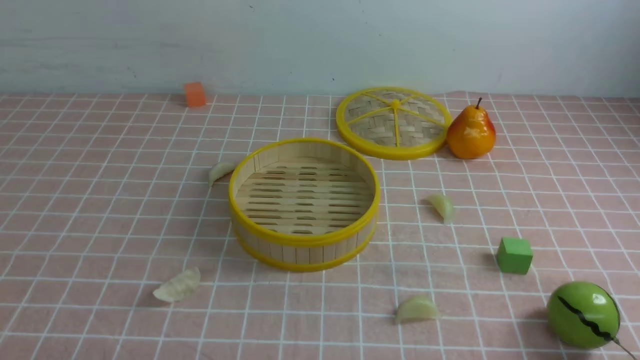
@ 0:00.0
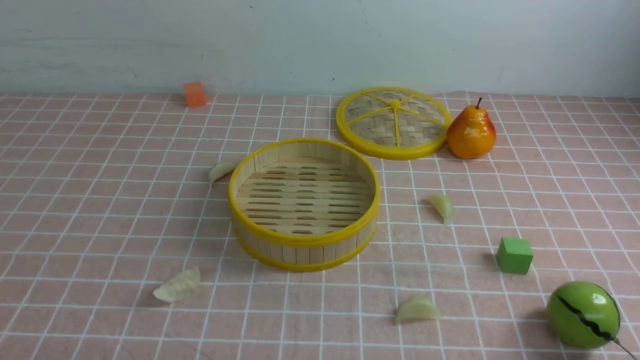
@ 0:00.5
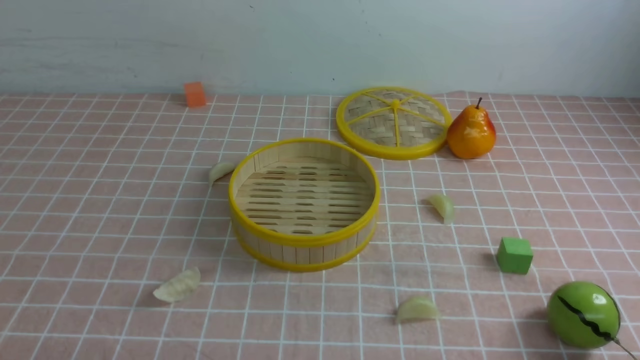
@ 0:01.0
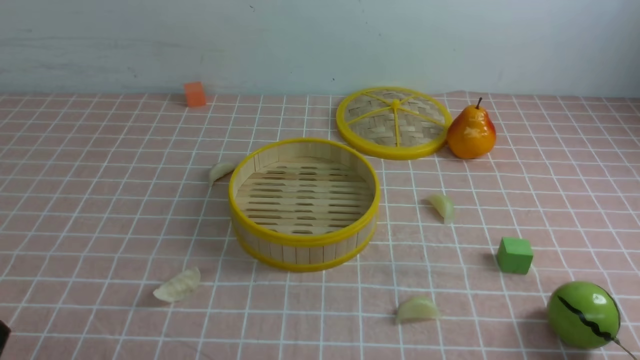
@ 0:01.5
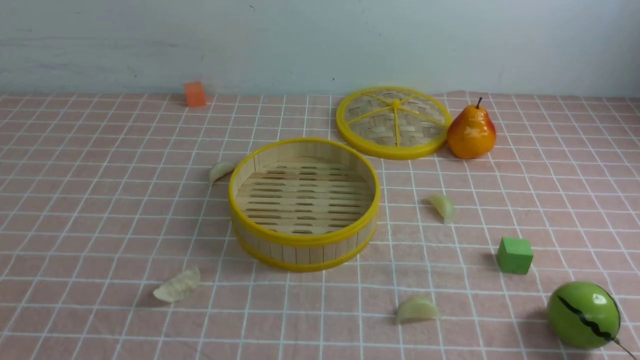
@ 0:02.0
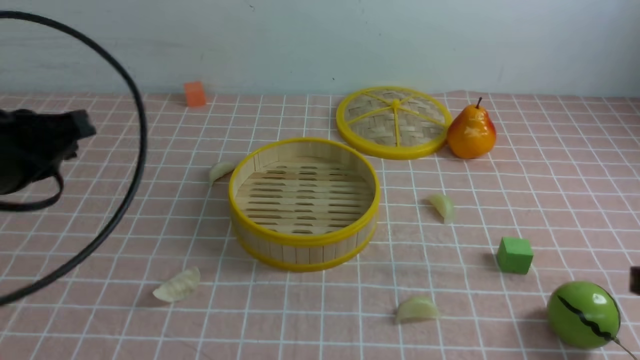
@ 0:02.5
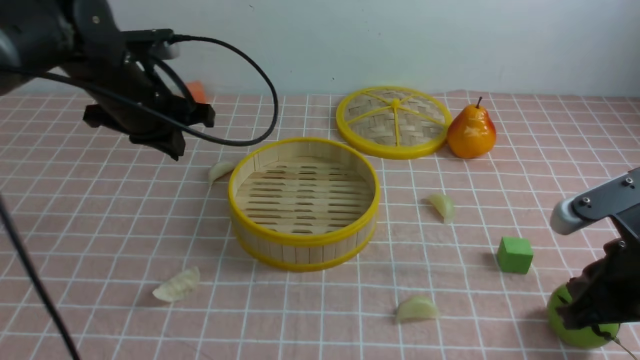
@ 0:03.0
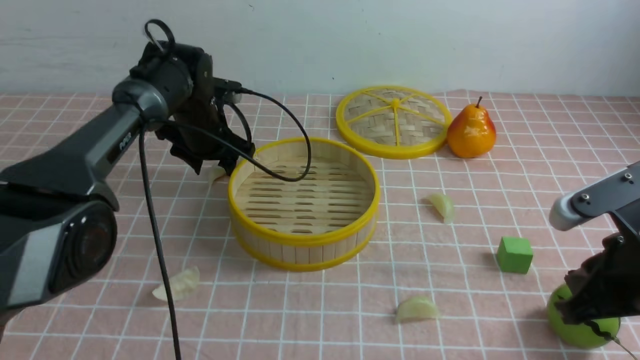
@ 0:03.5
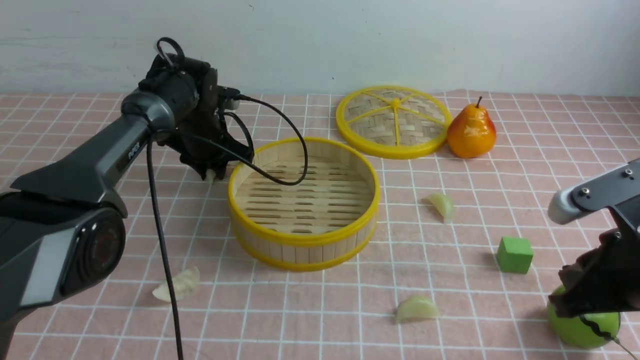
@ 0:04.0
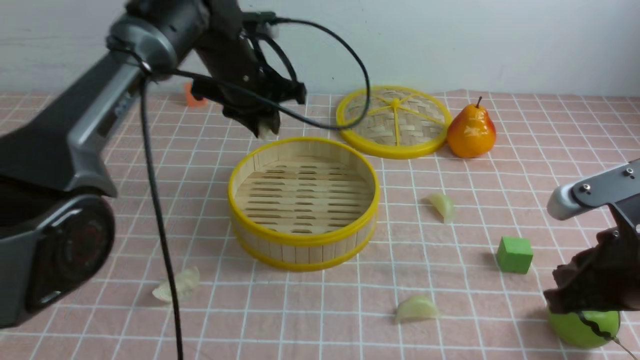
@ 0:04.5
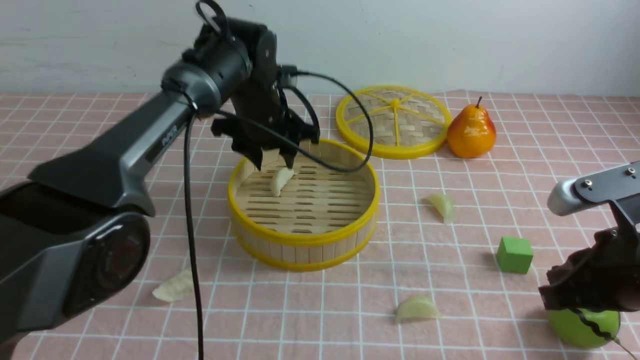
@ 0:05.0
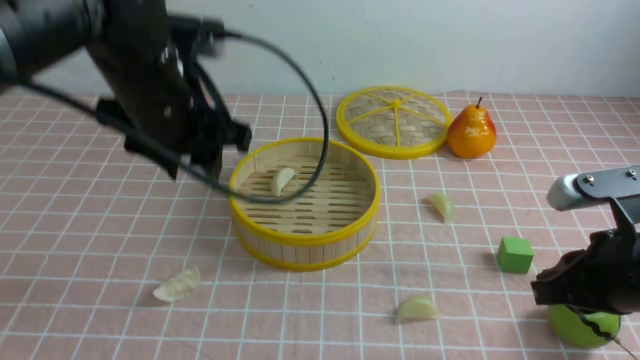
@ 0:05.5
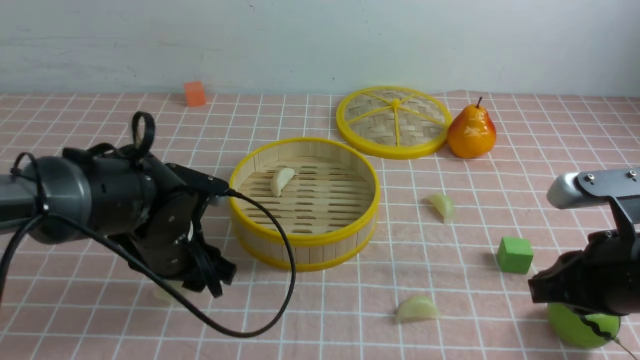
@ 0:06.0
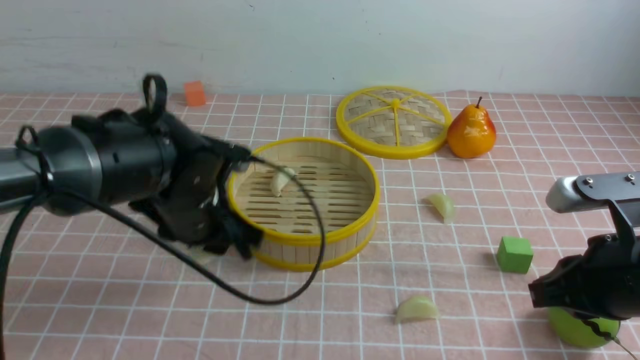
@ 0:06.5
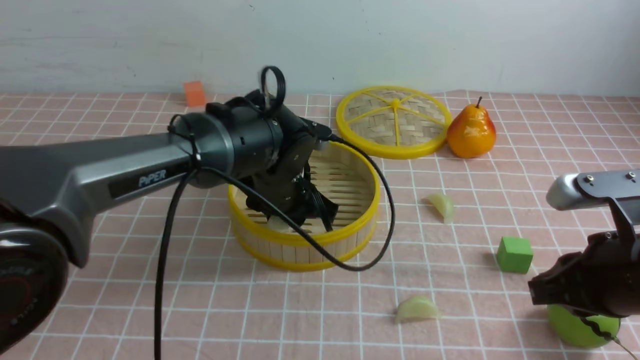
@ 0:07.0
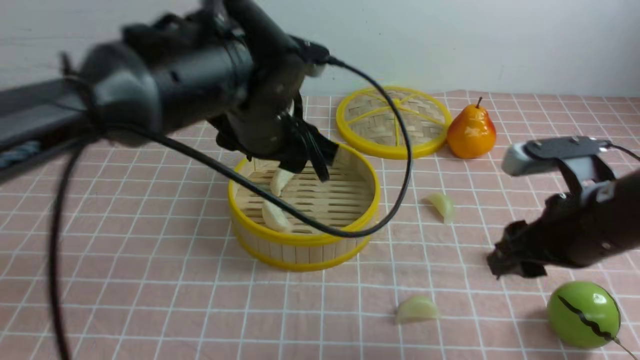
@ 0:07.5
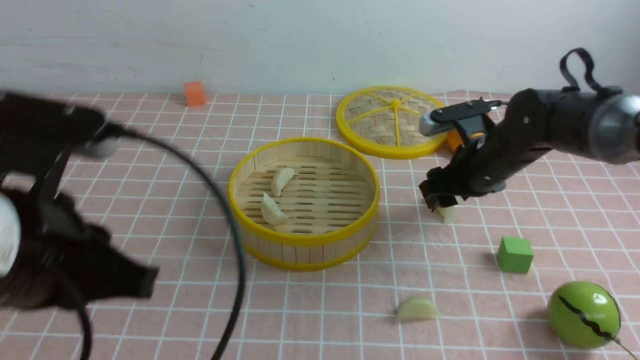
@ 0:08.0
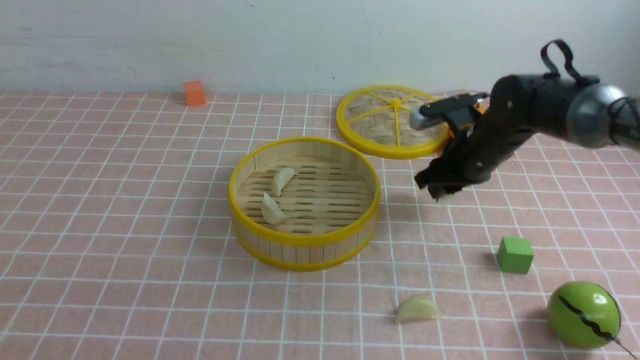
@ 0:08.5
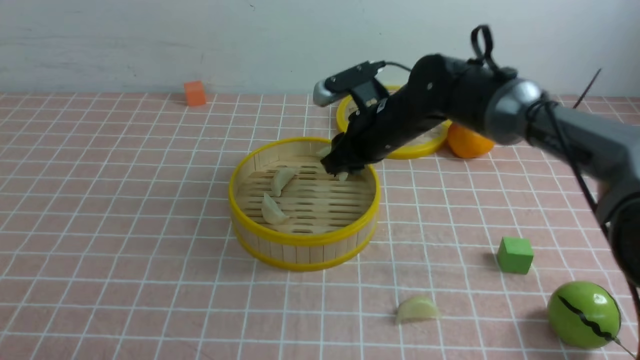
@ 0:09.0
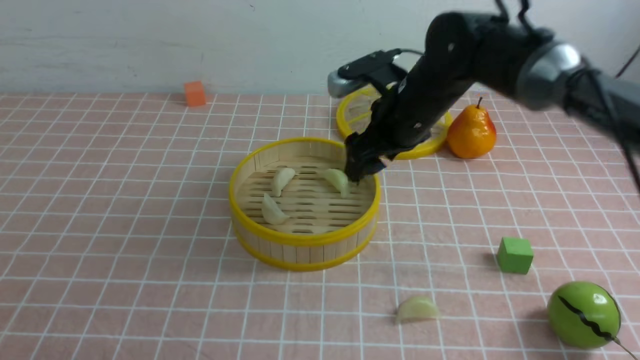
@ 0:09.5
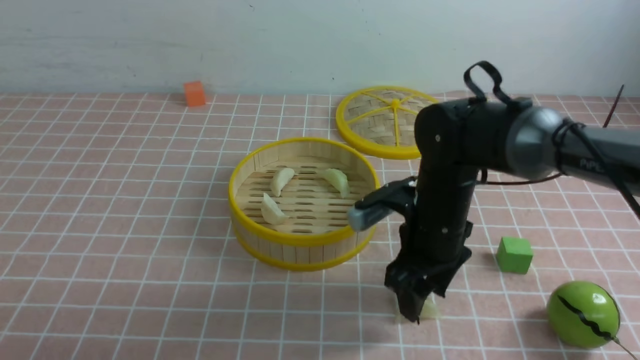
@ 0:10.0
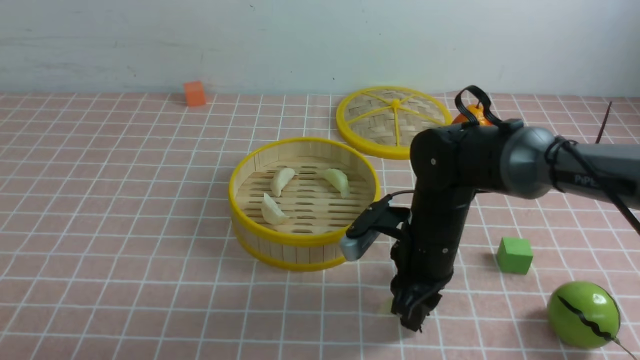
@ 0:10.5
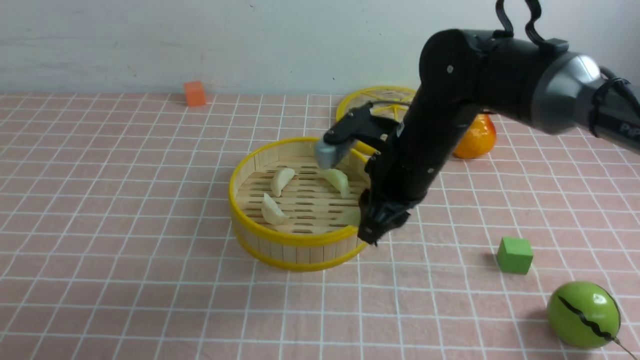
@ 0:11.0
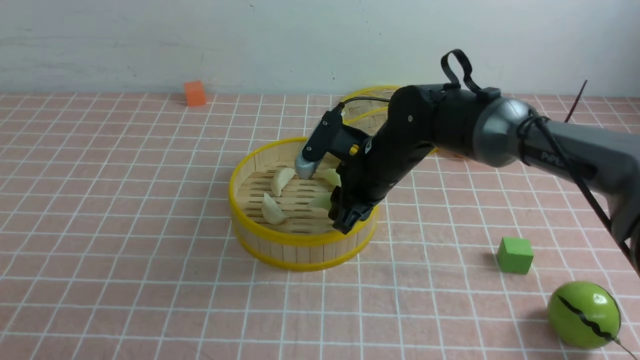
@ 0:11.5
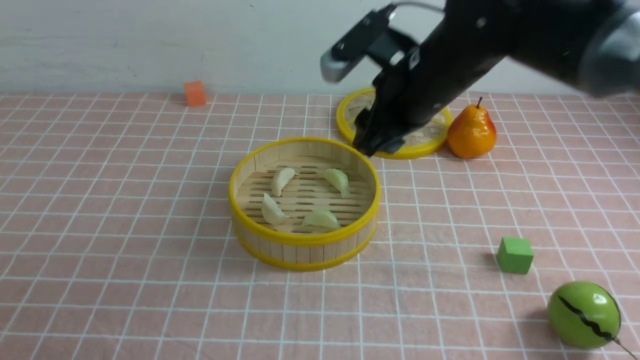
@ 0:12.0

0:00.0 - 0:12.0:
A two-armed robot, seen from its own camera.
Task of the whole recording: put the dumplings into the steamer on the table with the pink tablecloth.
Step, 0:00.0 - 0:04.0: use the left arm to grab a dumpling.
Step, 0:05.0 - 0:06.0: use the left arm to grab a dumpling.
Step, 0:06.5 - 0:07.0: use the left arm to put the dumpling into the steamer.
Step, 0:07.5 - 0:08.0: use the right arm to grab a dumpling.
Step, 0:08.5 - 0:09.0: use the right arm to put the dumpling into the steamer.
Step, 0:09.5 - 0:10.5: use the right arm to grab a dumpling.
Step, 0:11.0 - 0:11.5: use the right arm to put the dumpling into the steamer.
0:02.0 - 0:04.0: The left gripper goes about 50 cm forward, and opens up; the right gripper moves forward, about 15 cm.
0:04.0 - 0:06.0: The left gripper moves backward, approximately 20 cm, and opens.
0:06.0 - 0:08.0: The left gripper shifts about 25 cm backward and upward, and closes up, while the right gripper shifts roughly 20 cm forward, and opens its fingers.
0:08.0 - 0:10.0: The right gripper travels to the left and backward by roughly 10 cm; the left gripper heads to the left, backward and downward, covering some 15 cm.
0:10.0 - 0:12.0: The right gripper travels upward by about 15 cm.

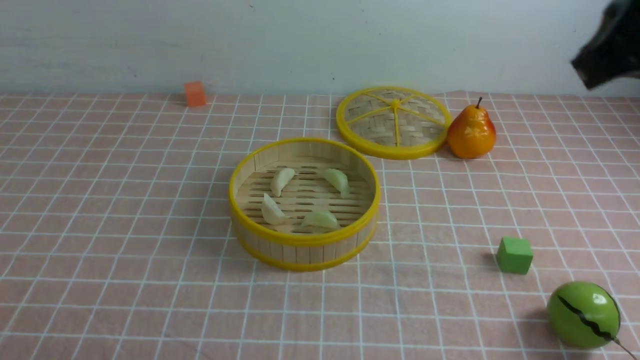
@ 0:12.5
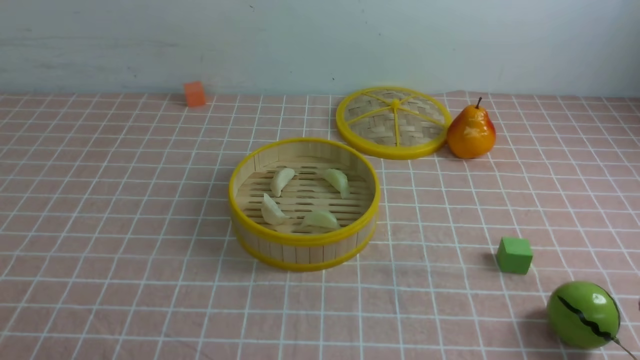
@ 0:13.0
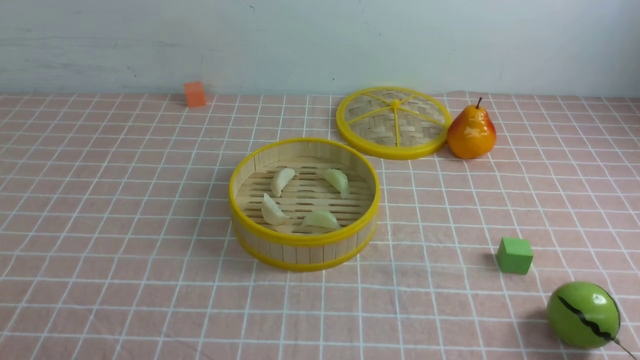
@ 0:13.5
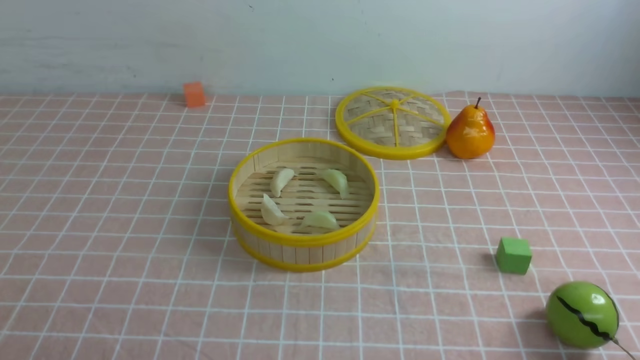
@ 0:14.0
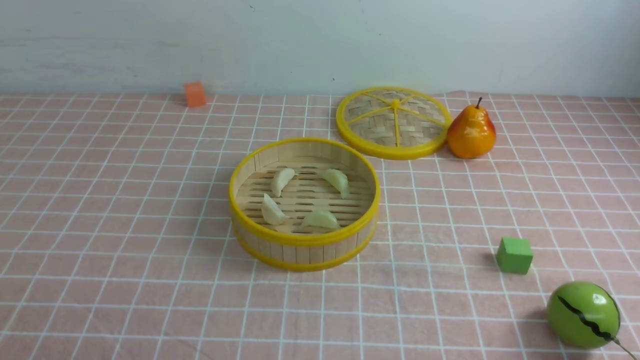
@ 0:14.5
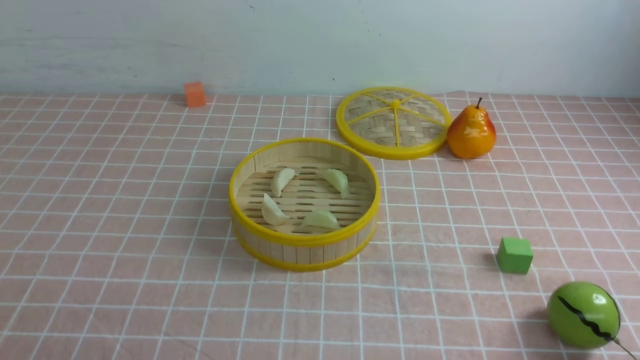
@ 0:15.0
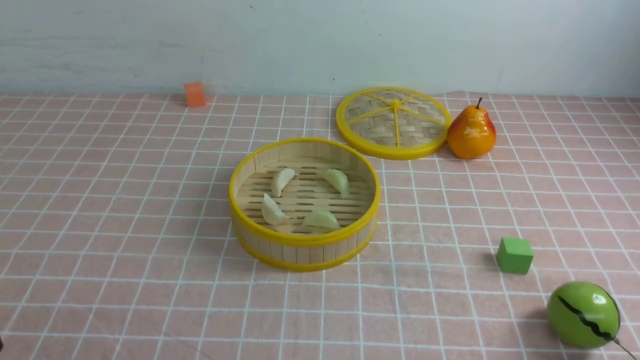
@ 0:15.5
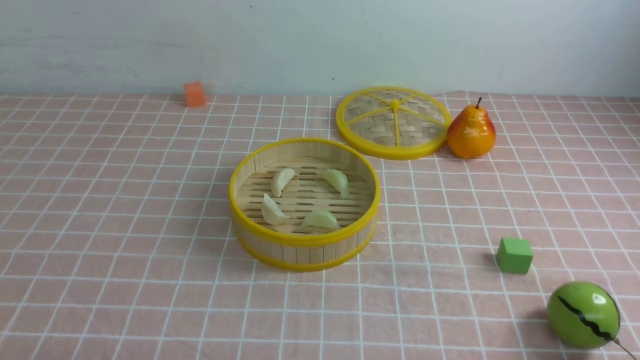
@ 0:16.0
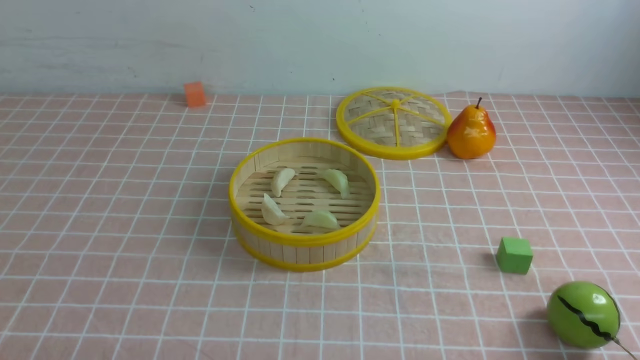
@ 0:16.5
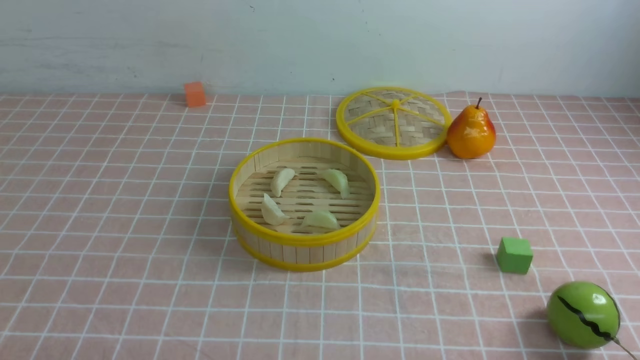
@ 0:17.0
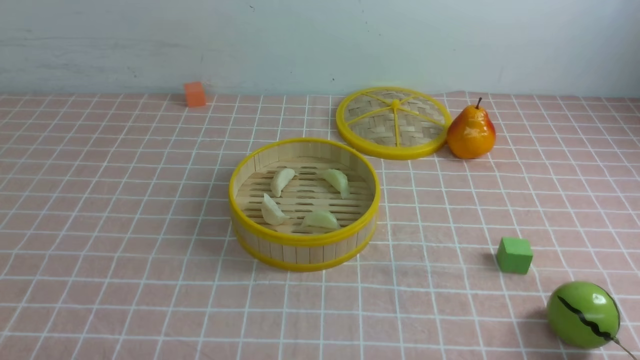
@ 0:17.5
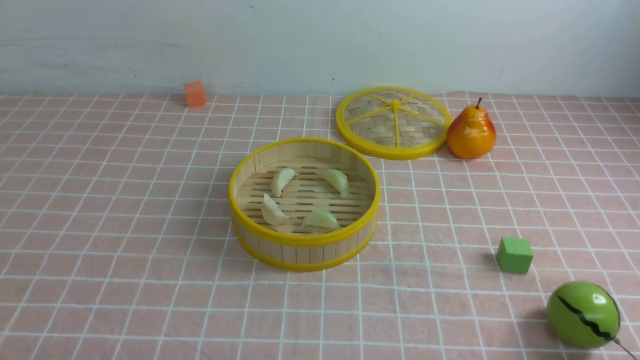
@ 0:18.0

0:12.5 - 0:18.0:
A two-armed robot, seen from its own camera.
Task of the whole recording: put the dumplings into the steamer on the table with the pink tablecloth.
0:12.5 - 0:14.5: The right gripper travels downward and backward by about 30 cm.
0:16.0 - 0:18.0: Both grippers stay put.

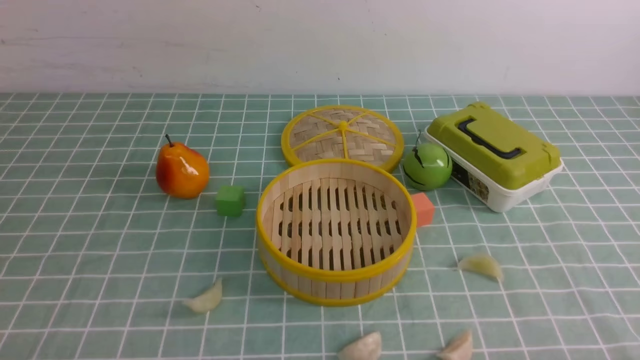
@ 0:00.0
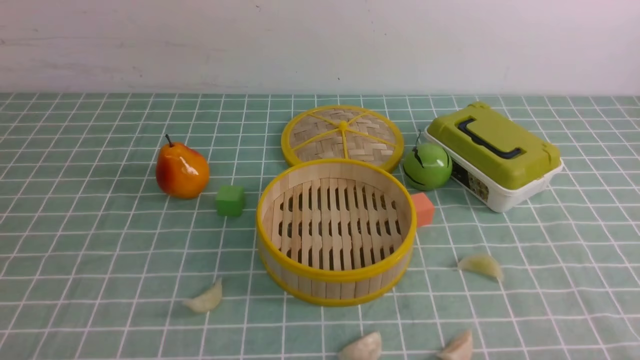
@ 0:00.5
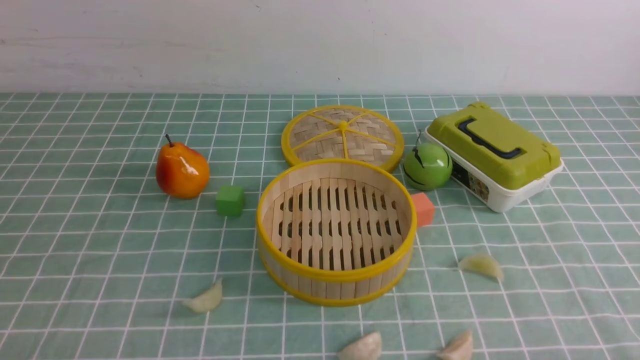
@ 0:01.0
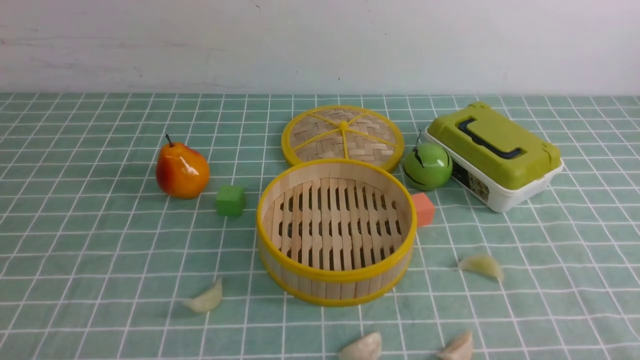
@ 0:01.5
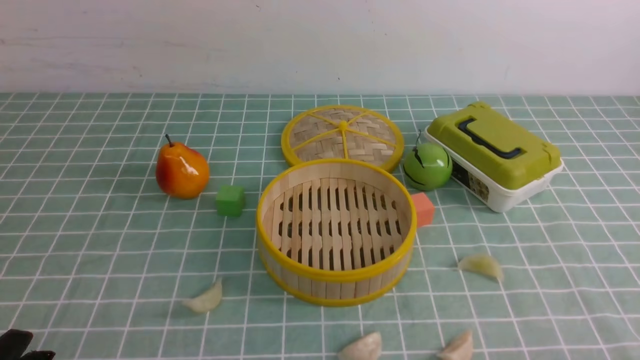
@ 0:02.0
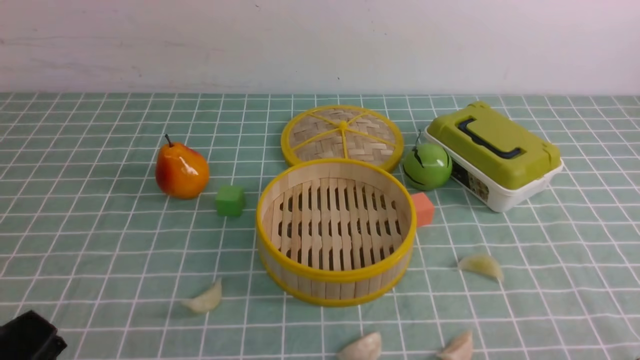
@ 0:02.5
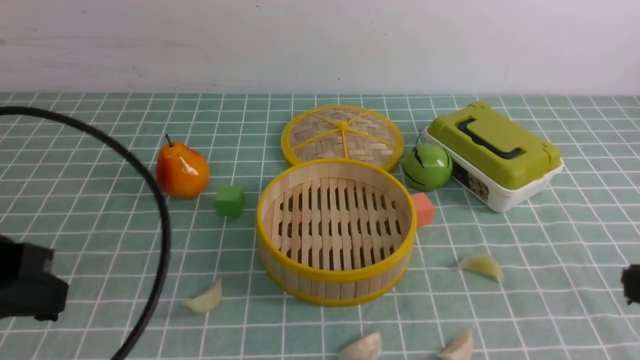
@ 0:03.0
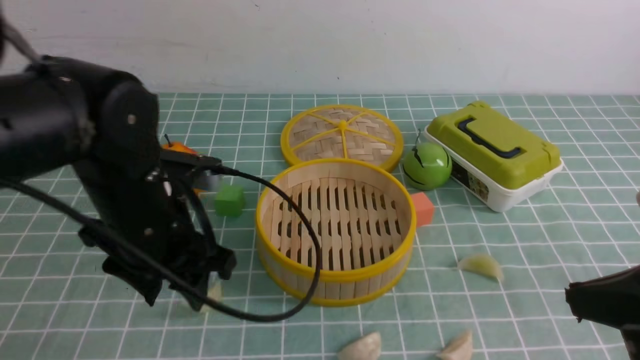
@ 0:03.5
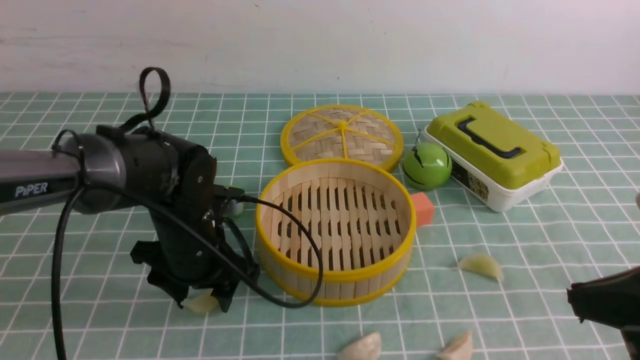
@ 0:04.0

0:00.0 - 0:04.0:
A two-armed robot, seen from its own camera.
Task of the whole recording: put the dumplings into the steamer on the table with the blue tablecloth.
0:02.0 - 0:04.0: The right gripper heads upward and forward, covering roughly 15 cm, and closes up. The left gripper moves forward and to the right, some 30 cm, and opens its fingers.
